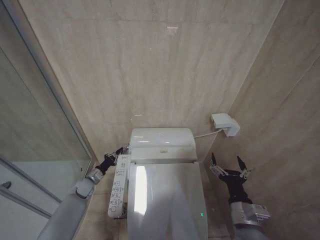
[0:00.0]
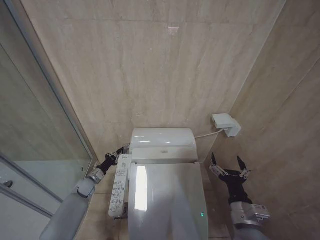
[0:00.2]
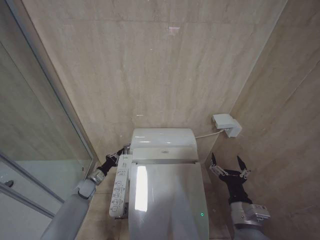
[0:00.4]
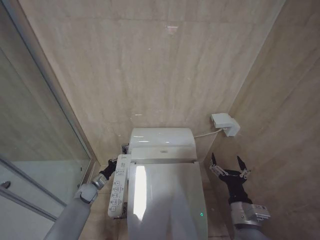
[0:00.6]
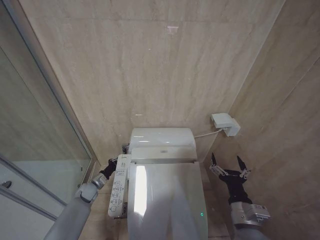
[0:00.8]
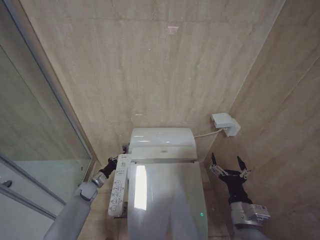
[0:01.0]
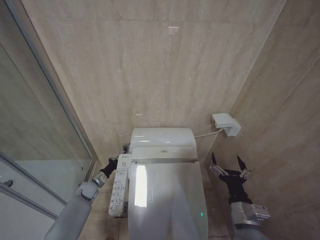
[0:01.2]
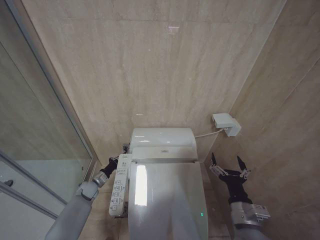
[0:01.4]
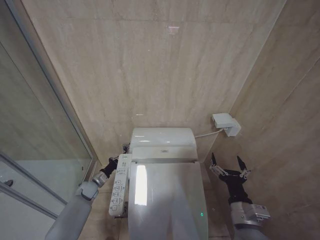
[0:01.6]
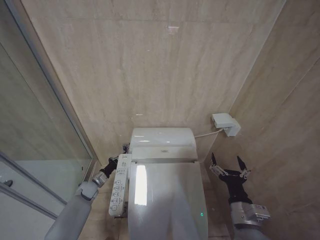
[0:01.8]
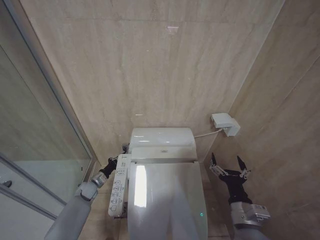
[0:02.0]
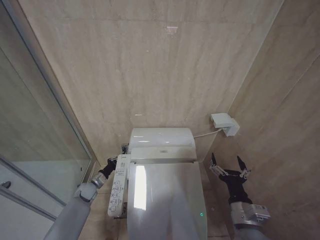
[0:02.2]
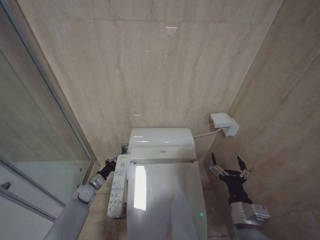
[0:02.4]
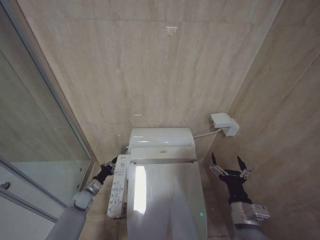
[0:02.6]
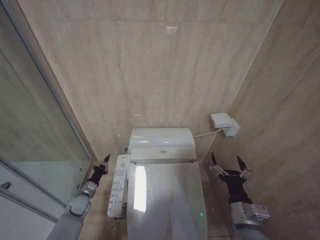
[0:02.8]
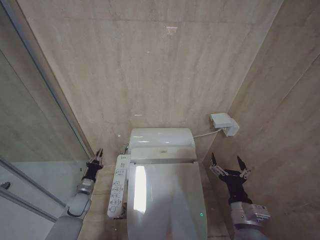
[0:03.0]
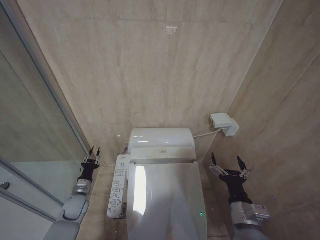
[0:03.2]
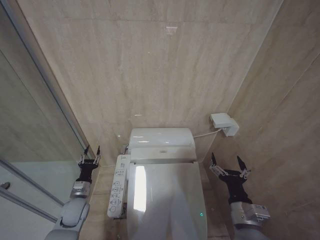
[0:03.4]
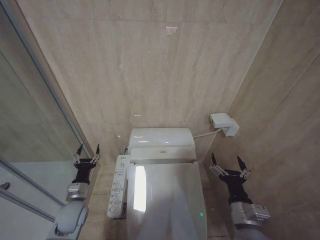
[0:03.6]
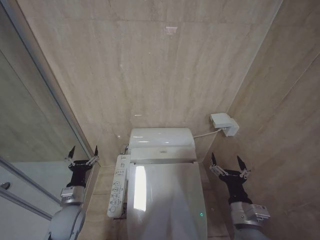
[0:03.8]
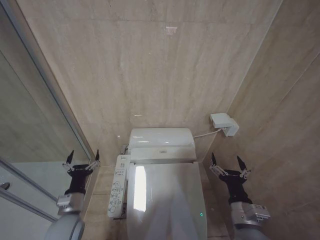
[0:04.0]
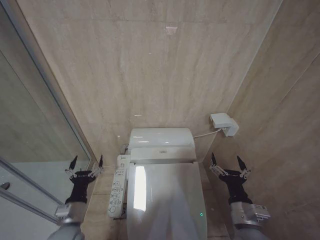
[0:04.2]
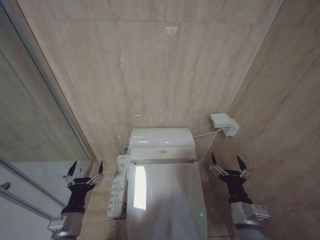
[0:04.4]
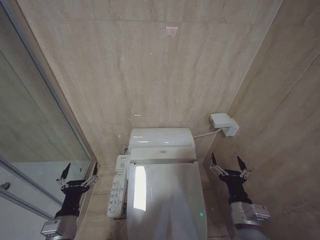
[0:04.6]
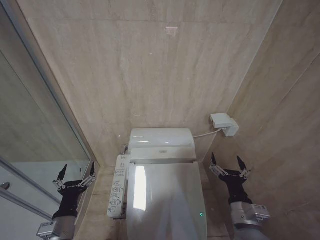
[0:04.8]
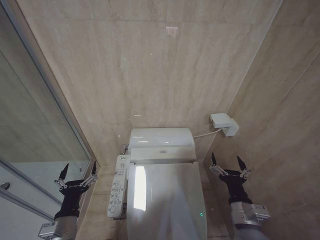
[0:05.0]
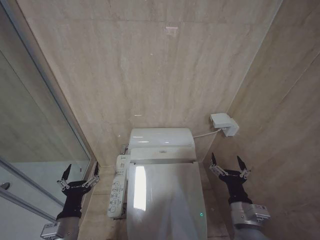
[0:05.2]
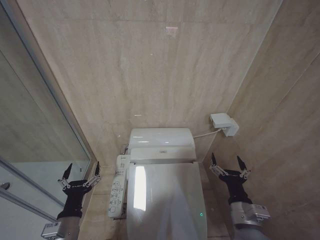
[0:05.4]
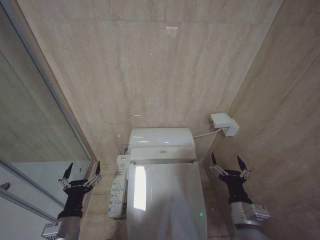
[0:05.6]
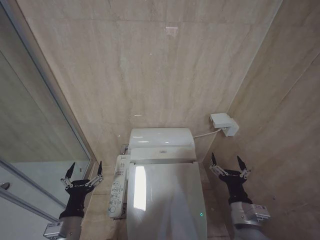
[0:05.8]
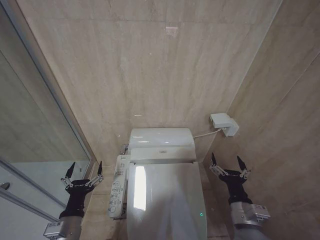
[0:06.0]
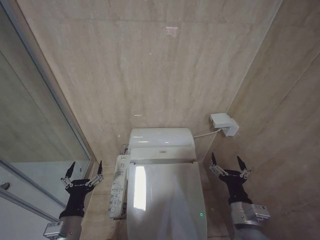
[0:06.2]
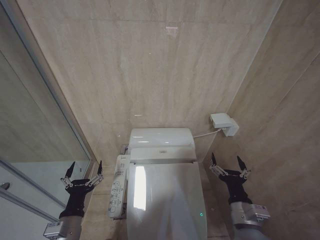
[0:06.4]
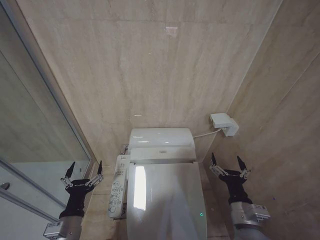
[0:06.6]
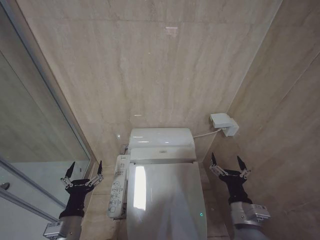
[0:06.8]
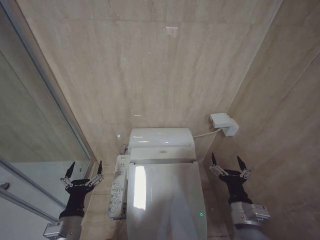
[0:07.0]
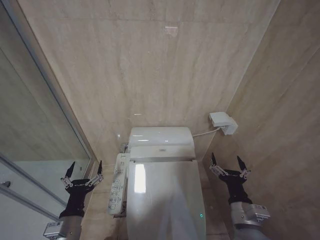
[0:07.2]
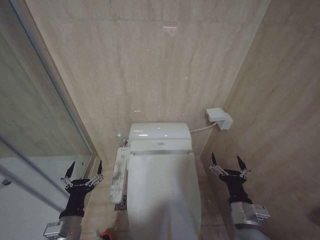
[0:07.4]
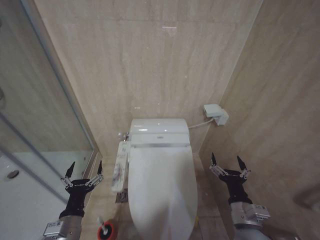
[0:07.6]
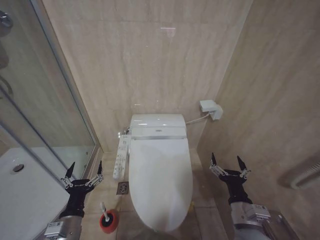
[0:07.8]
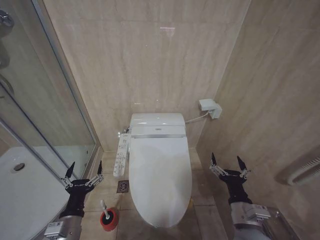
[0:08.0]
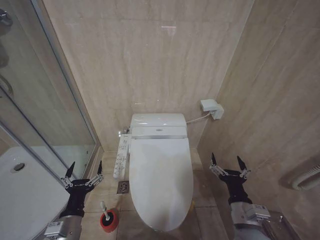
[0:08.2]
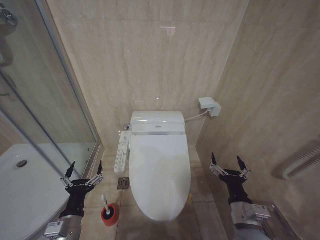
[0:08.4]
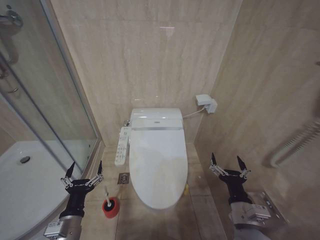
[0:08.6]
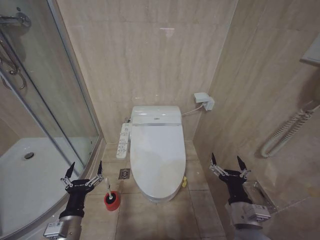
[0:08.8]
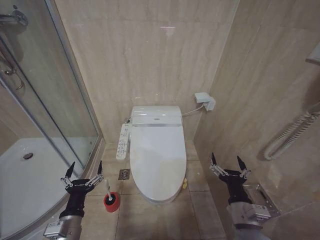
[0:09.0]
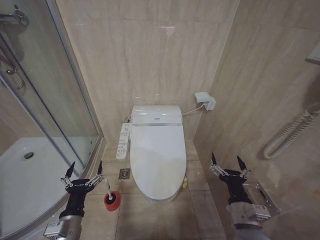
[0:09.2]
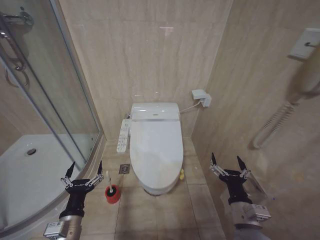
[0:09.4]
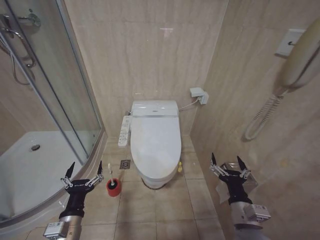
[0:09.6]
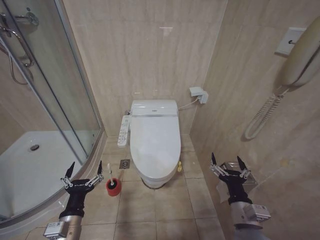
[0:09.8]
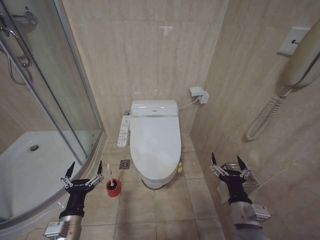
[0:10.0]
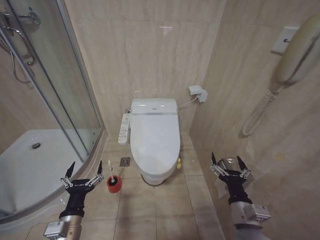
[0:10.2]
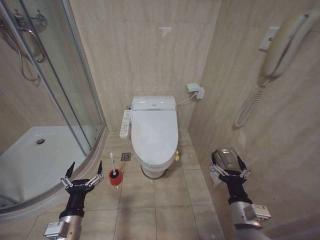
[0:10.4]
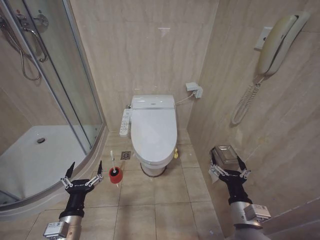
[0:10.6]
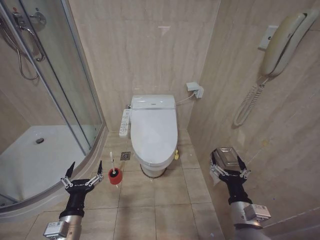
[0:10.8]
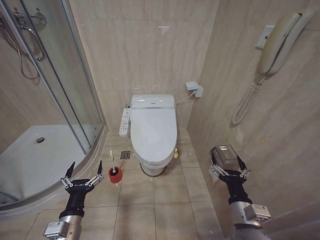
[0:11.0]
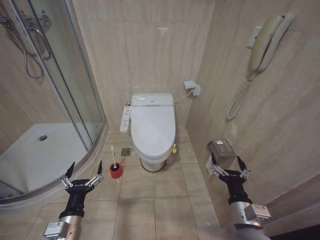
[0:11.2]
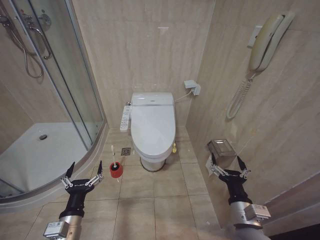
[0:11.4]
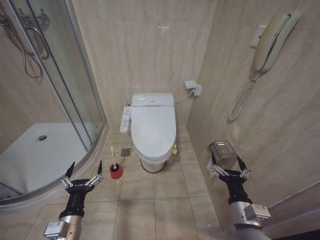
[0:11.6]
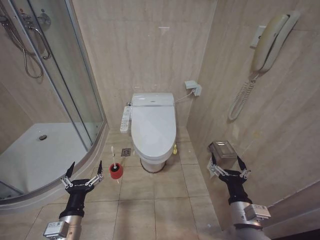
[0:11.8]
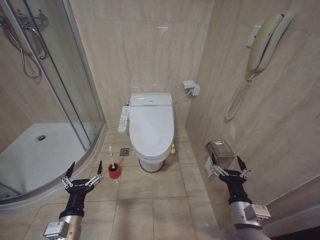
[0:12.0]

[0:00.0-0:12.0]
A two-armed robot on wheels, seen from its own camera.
Task of the whole recording: Open the toilet lid, clean the toilet bowl with a toilet brush, close the toilet lid, and flush.
0:00.0 to 0:01.6: The grippers make only small movements.
0:01.6 to 0:03.0: The left gripper is displaced backward by roughly 5 cm.
0:03.0 to 0:04.4: The left gripper travels backward, upward and to the right by approximately 25 cm, and opens its fingers.
0:06.0 to 0:09.0: The two grippers keep their place.
0:10.4 to 0:12.0: Both grippers stay put.

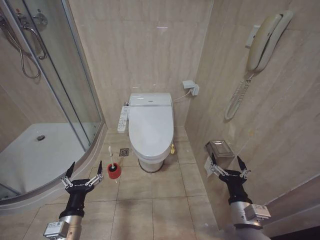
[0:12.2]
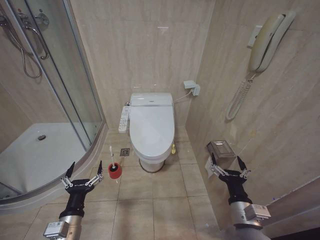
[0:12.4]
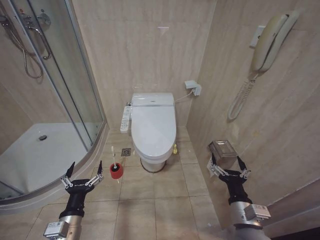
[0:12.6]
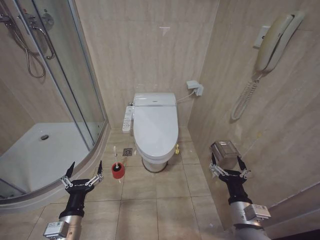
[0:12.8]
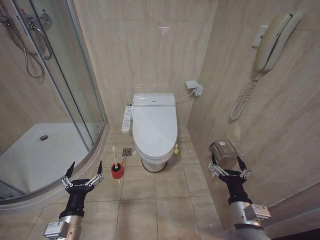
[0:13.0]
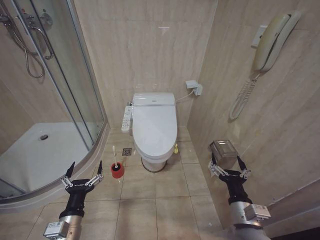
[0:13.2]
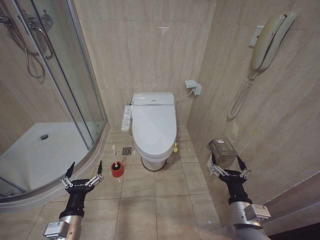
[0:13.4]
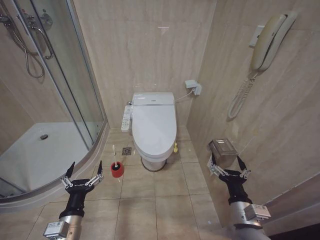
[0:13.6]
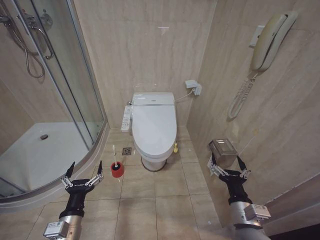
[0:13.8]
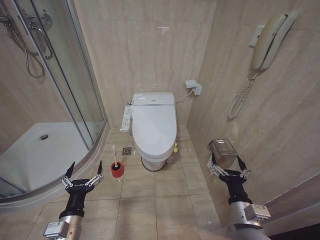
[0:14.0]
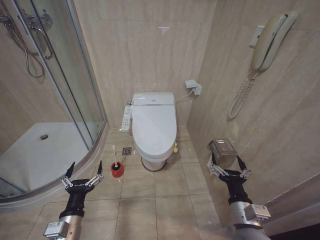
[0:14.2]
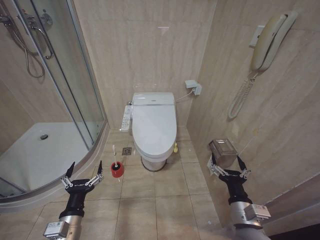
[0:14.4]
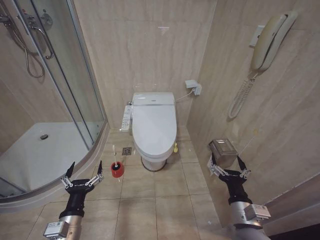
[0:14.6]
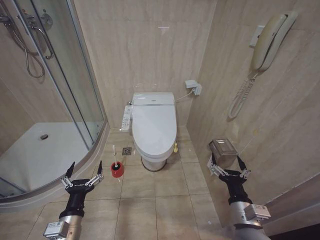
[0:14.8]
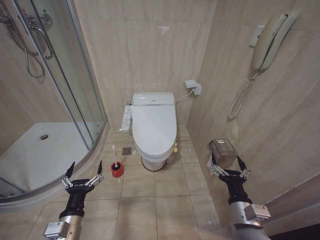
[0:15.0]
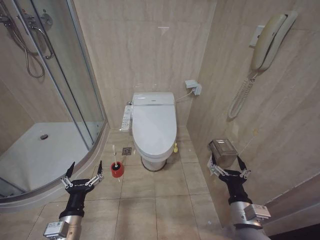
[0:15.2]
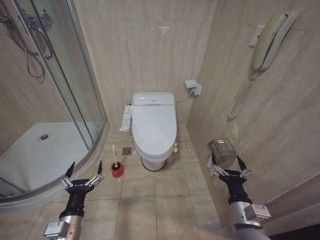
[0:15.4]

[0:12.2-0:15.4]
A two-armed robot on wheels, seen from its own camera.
Task of the whole recording: Open the toilet lid, clean the toilet bowl with a toilet brush, close the toilet lid, and flush.
0:12.2 to 0:15.4: Both grippers stay about where they are.
